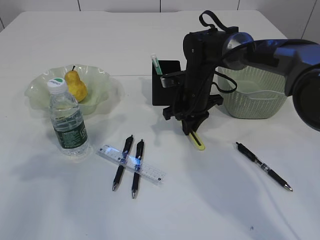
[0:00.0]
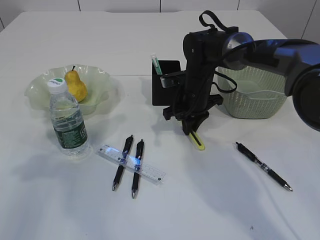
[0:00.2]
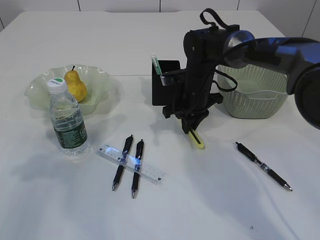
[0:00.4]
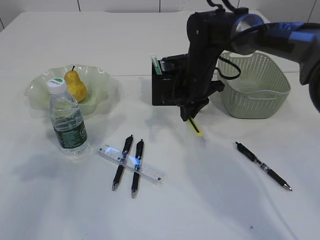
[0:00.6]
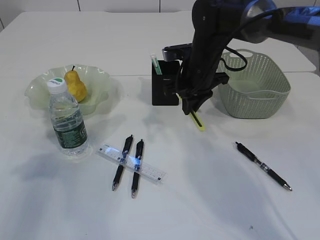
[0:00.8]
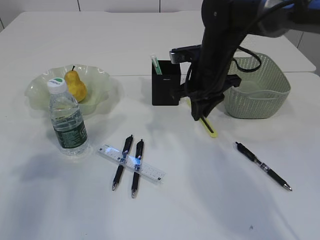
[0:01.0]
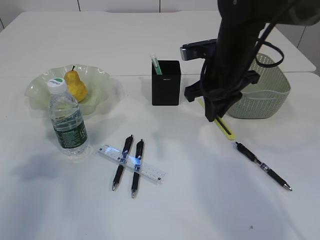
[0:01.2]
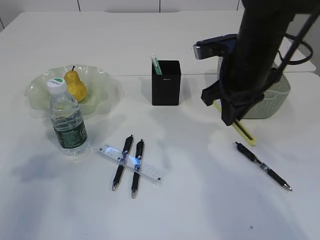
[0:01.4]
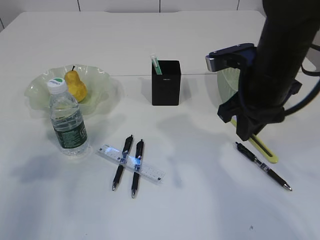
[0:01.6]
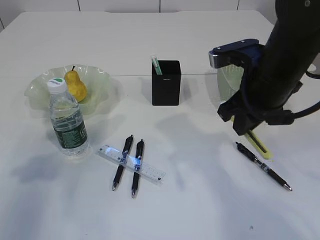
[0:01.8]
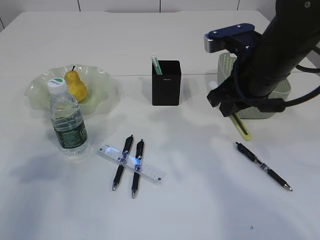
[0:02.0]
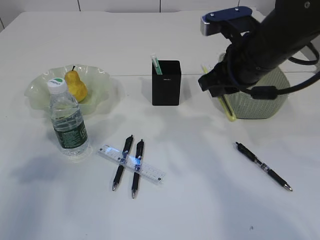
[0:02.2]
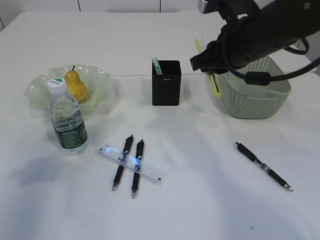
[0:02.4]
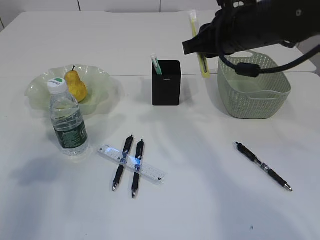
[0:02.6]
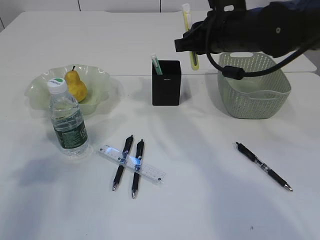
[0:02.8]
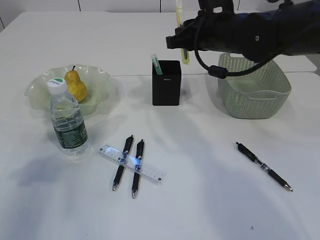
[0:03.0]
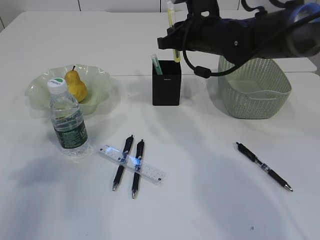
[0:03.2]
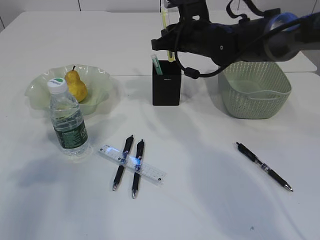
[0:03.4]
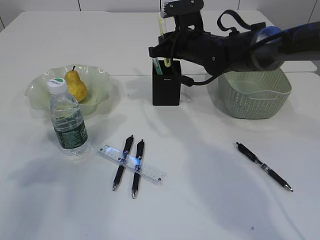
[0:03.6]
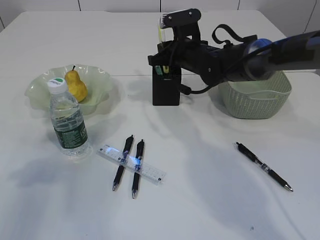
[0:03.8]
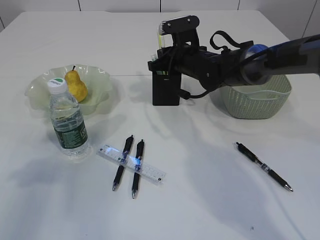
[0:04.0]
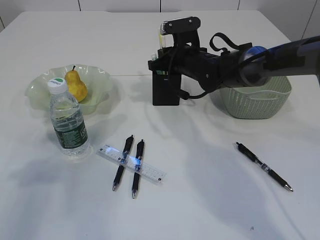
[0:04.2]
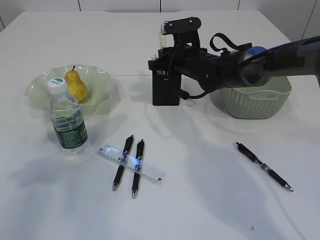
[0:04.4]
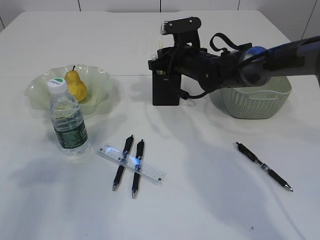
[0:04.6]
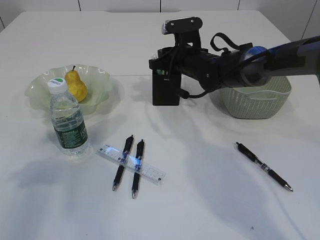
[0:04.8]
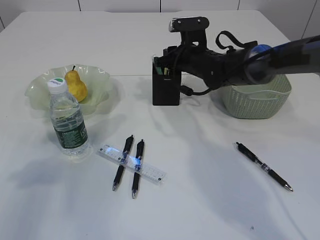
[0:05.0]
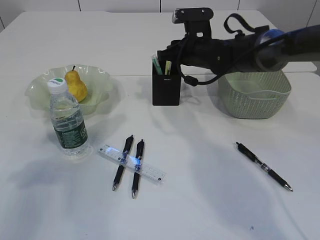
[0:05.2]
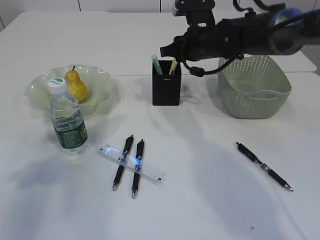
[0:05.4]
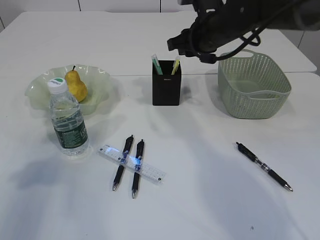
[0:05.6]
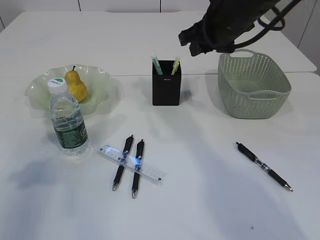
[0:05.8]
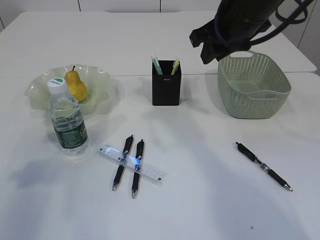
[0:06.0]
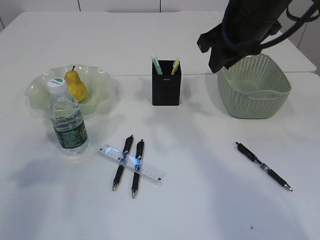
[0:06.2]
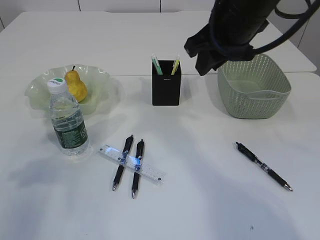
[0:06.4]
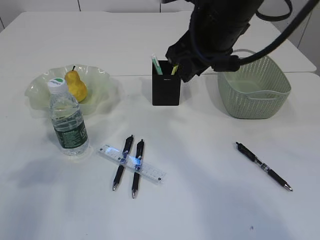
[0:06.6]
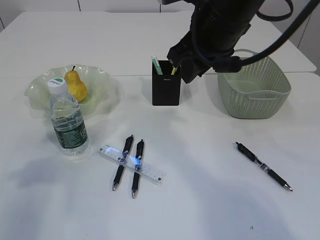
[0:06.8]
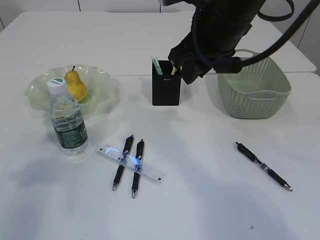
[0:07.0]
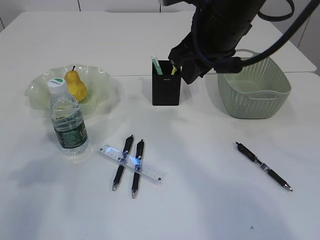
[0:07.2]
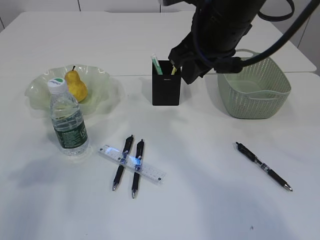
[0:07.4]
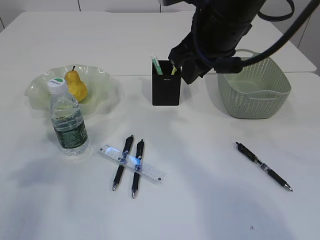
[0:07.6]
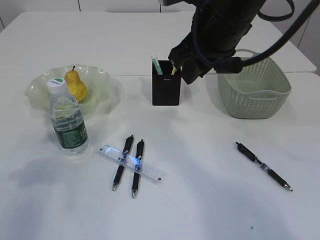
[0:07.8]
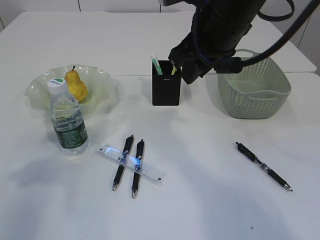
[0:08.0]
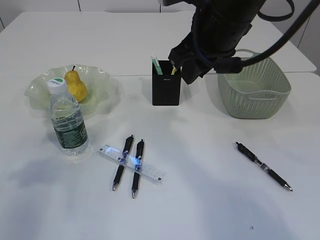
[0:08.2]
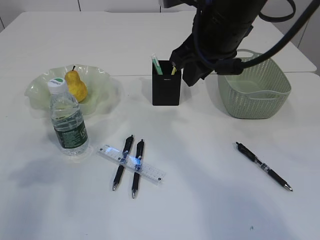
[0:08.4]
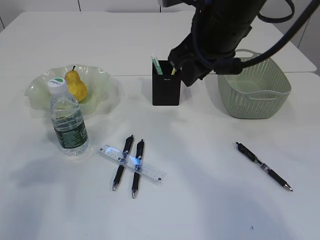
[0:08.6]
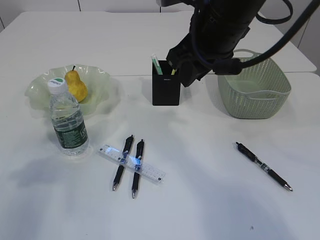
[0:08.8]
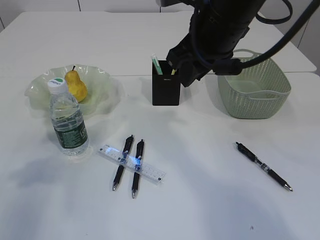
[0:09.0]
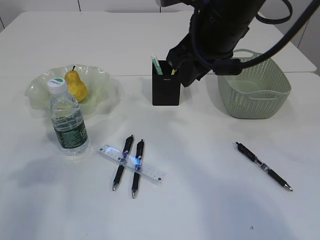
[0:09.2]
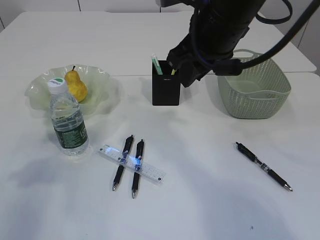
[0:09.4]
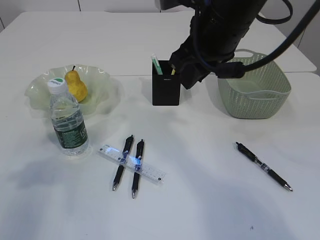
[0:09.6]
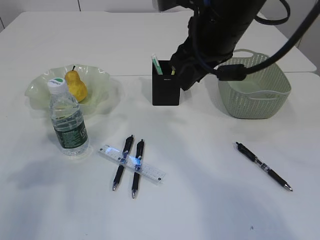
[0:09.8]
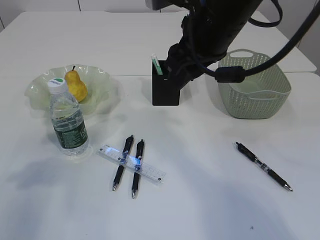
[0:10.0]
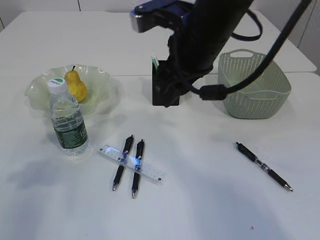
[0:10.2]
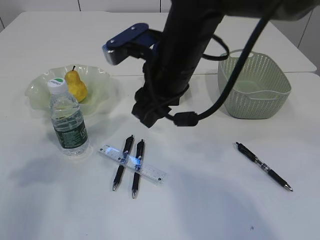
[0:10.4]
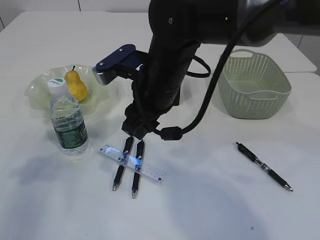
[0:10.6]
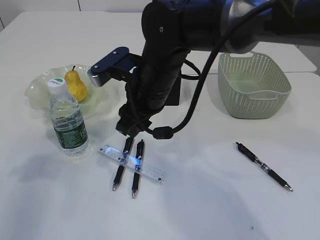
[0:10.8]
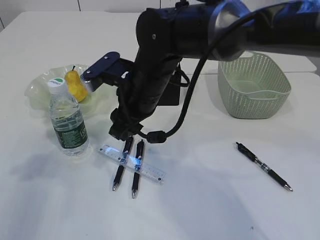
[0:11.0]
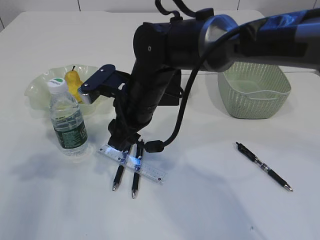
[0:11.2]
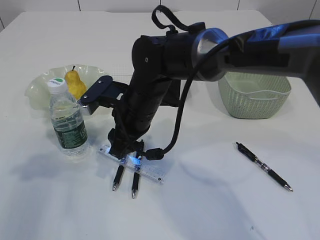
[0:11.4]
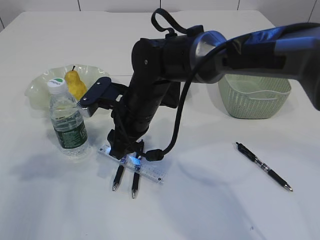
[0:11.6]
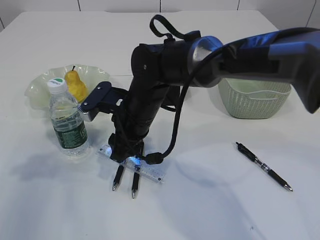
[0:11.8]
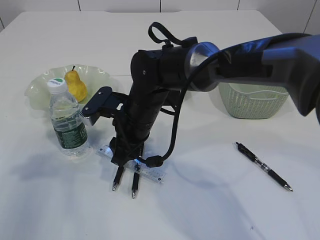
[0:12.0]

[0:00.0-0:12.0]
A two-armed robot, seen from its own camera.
Step, 0:00.8 to 0:05.8: place the yellow knife into the pen holder.
0:00.0 to 0:01.6: The right gripper is displaced backward and upward by some 20 cm.
0:01.6 to 0:03.0: The right gripper goes roughly 10 cm forward.
0:03.0 to 0:04.4: The right gripper shifts roughly 10 cm downward and forward.
0:04.4 to 0:06.0: The right gripper moves upward and backward, approximately 20 cm.
0:06.0 to 0:07.6: The right gripper heads backward, covering some 5 cm.
0:07.6 to 0:09.0: Neither gripper changes place.
0:09.0 to 0:10.4: The right gripper is displaced to the left and downward by approximately 10 cm.
0:10.4 to 0:12.0: The right gripper shifts about 15 cm downward and to the left.

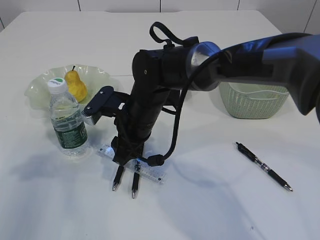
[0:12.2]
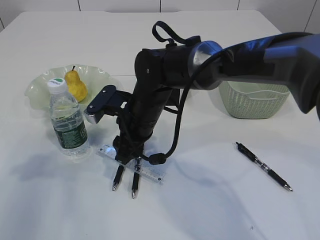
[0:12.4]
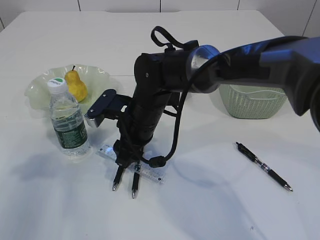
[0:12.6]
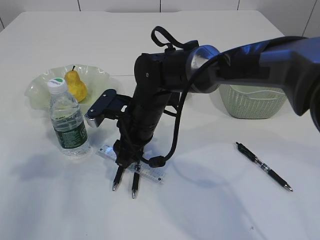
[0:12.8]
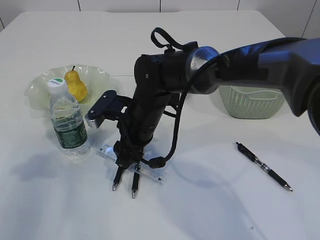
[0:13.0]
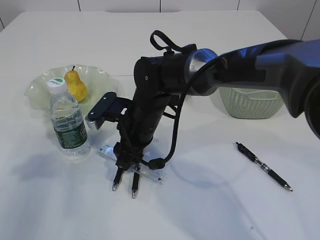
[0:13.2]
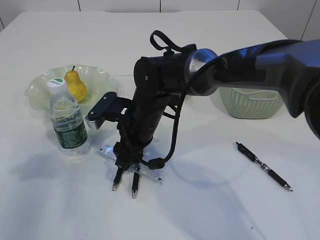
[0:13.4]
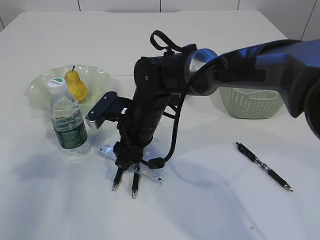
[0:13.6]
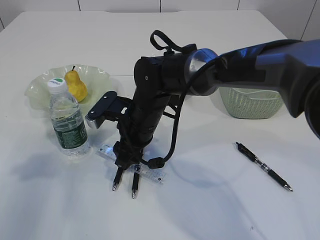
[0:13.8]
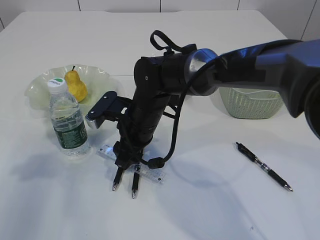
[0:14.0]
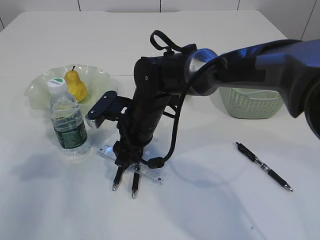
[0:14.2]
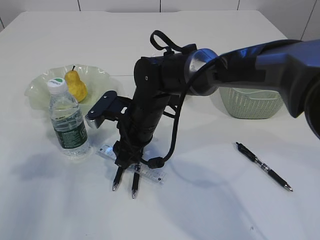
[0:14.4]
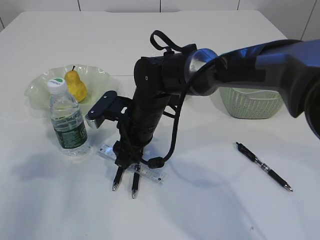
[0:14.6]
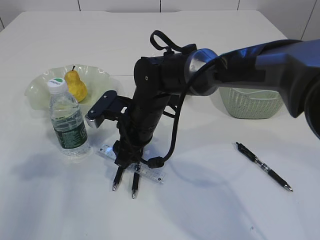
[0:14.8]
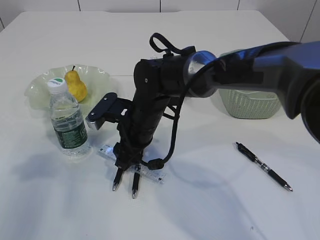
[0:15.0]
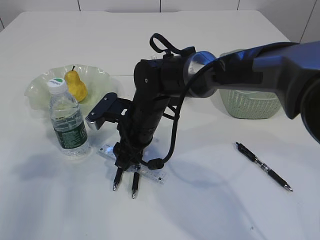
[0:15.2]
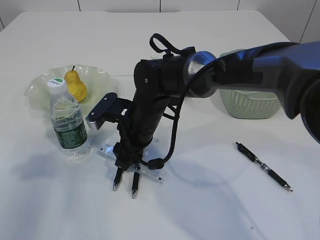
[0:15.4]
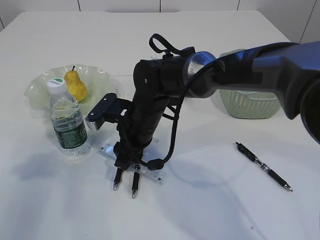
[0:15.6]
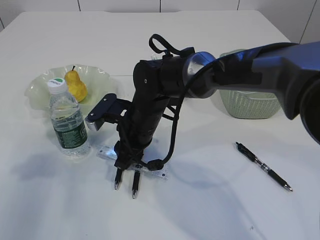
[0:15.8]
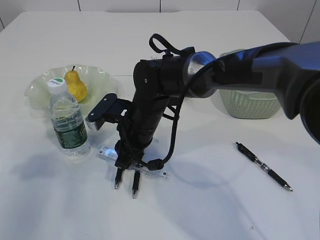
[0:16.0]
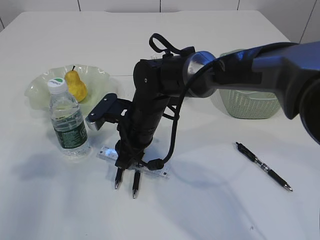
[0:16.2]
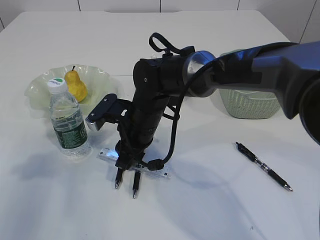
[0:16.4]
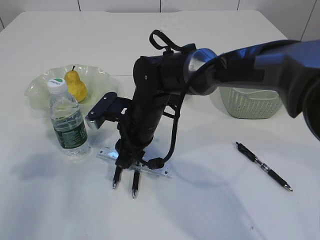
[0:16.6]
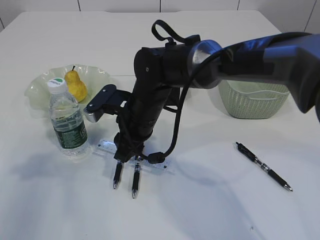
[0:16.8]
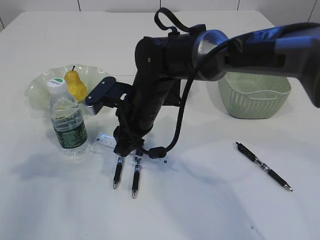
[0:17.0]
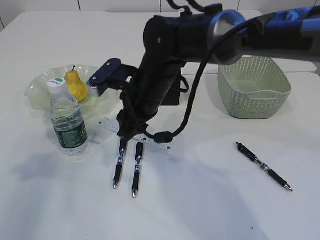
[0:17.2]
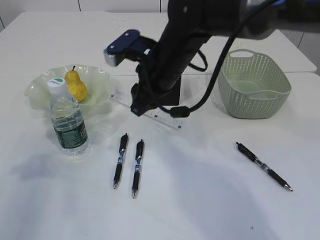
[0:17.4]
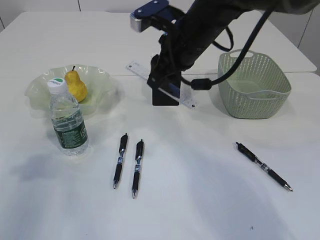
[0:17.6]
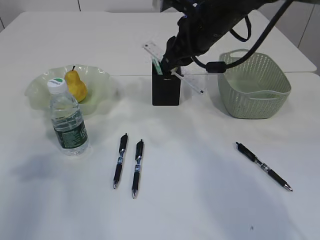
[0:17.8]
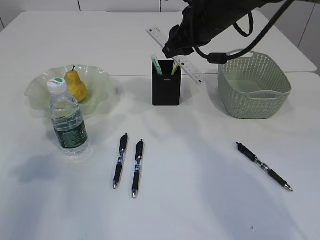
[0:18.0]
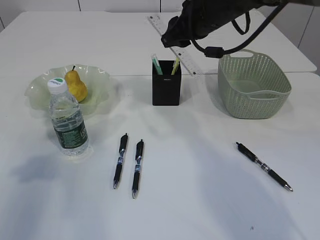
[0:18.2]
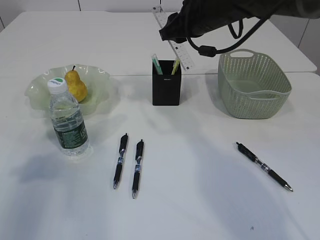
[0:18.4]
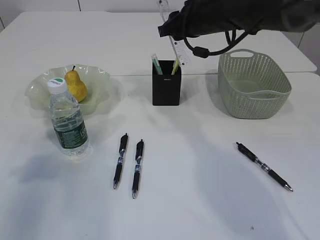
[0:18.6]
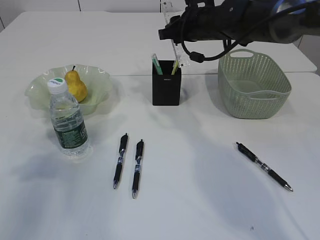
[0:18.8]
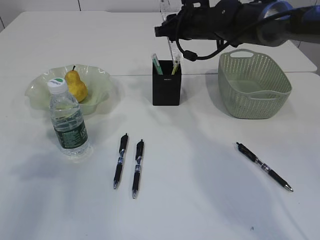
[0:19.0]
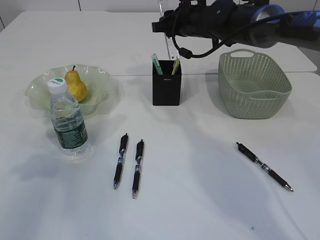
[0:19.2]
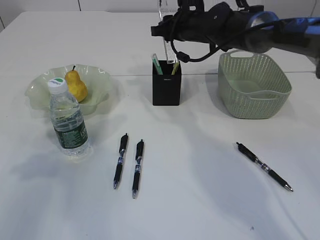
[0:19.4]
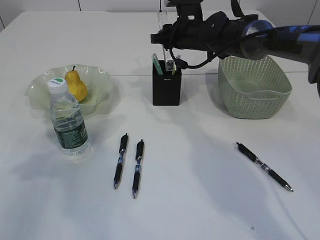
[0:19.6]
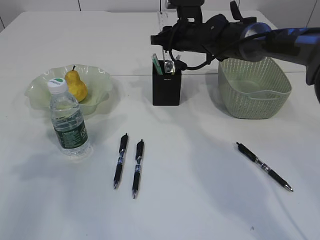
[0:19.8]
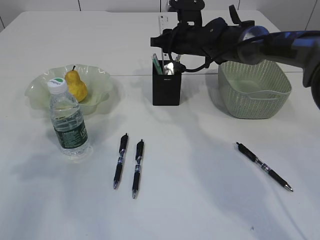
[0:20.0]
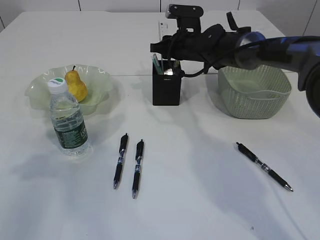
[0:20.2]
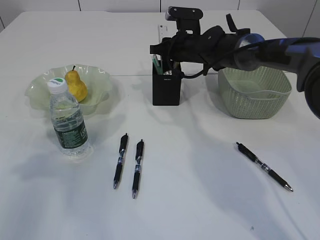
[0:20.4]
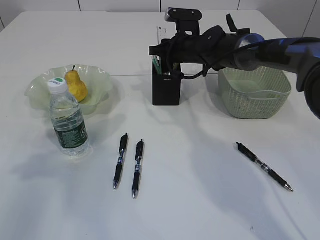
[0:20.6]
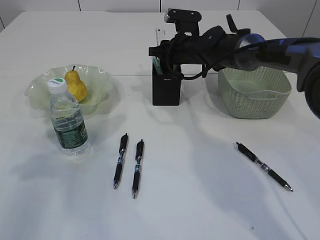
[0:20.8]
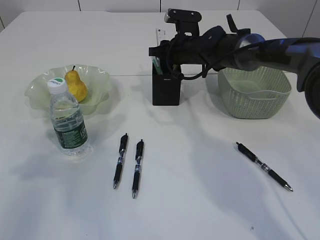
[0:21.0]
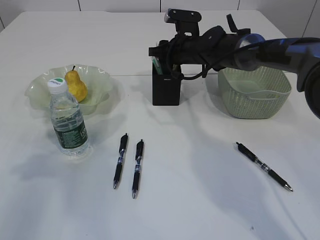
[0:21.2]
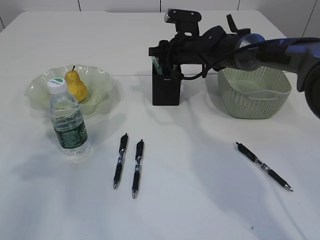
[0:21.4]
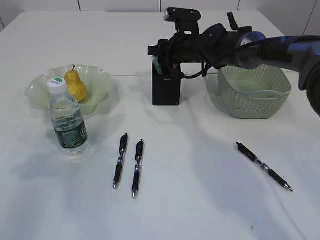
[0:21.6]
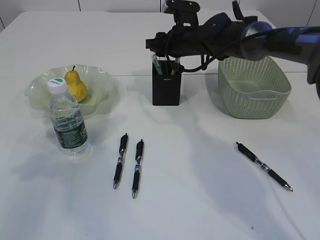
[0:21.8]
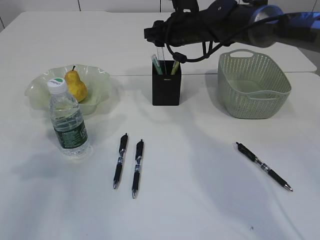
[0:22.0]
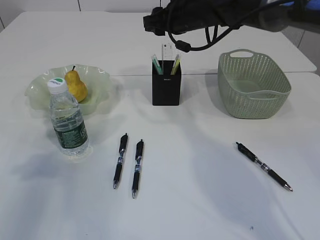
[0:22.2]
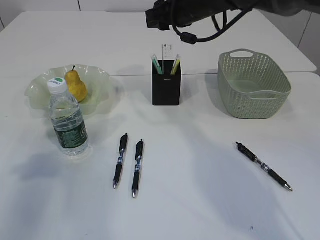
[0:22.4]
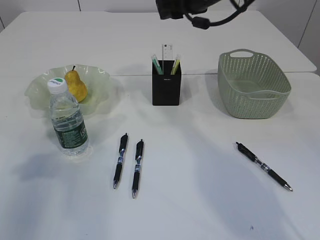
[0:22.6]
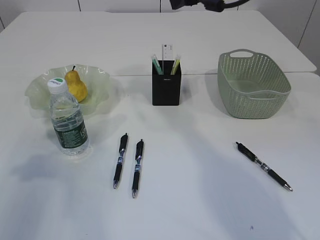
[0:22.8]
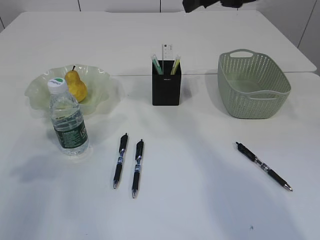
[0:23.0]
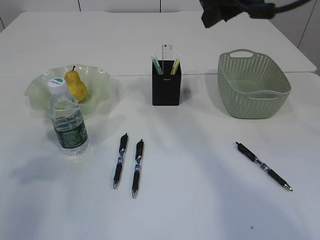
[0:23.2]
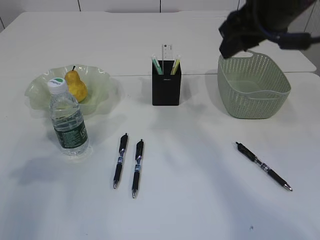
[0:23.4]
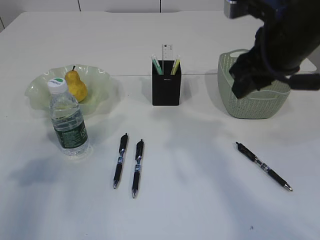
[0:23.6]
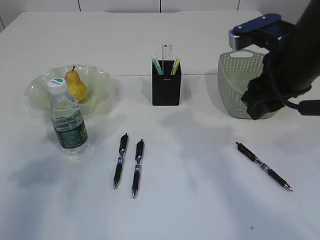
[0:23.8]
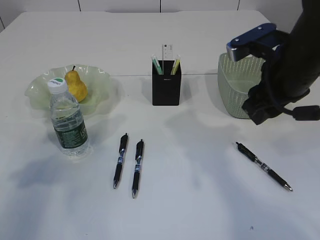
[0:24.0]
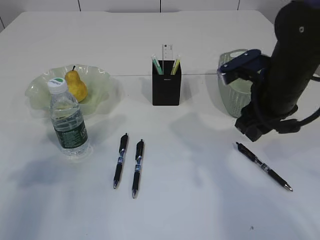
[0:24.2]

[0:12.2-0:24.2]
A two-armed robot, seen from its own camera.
Step, 0:12.2 to 0:17.6: pick up the ruler.
Step, 0:17.8 to 0:22.8: Place the ruler into the pen holder.
0:12.2 to 0:13.8: There are only small adjustments of the grippers.
0:13.8 to 0:16.6: Both grippers stay put.
0:16.6 to 0:18.2: The right gripper shifts roughly 20 cm upward, to the right and forward.
0:18.2 to 0:19.8: The right gripper moves forward and downward, about 15 cm.
0:19.8 to 0:21.2: There are only small adjustments of the grippers.
0:21.2 to 0:22.6: The right gripper shifts about 15 cm upward and backward.
0:22.6 to 0:24.2: The right gripper moves backward, downward and to the right, some 20 cm.
